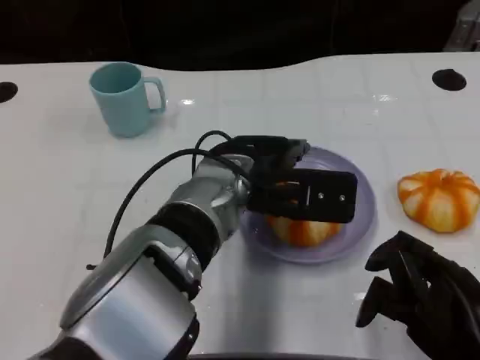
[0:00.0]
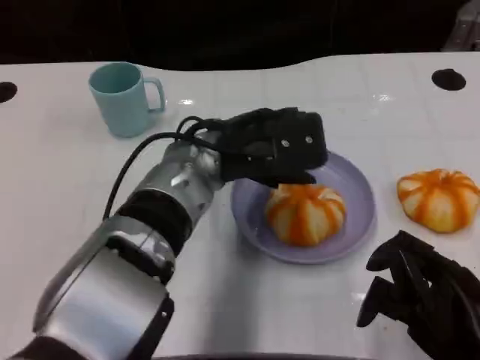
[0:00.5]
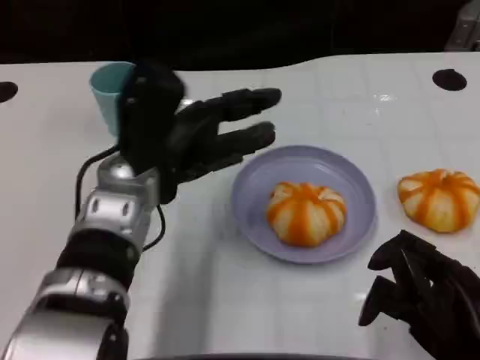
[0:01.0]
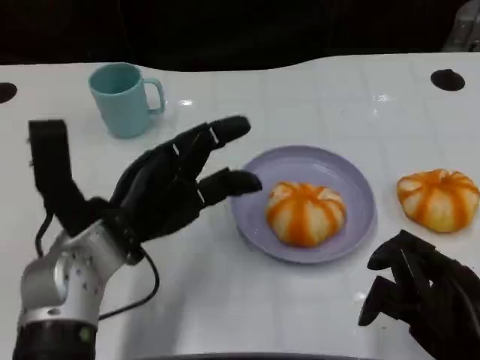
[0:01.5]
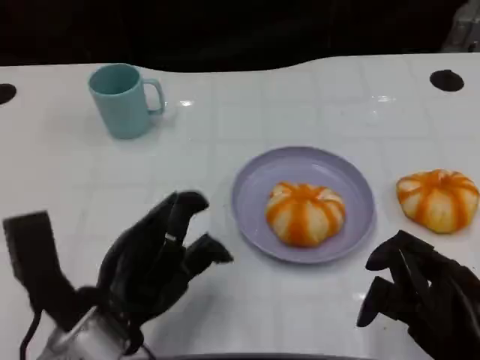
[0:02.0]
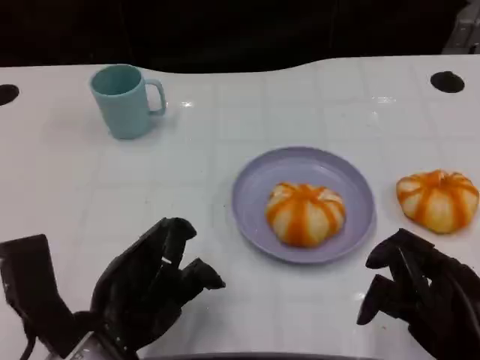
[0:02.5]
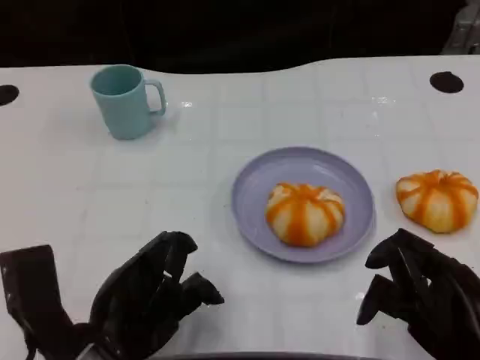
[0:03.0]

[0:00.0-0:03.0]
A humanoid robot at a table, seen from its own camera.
Task of the whole recording: Grasp the bread from the table and place it into the plate.
0:00.0 to 0:01.5: The left hand is displaced to the left by some 15 cm.
0:01.5 to 0:03.0: The left hand travels backward by approximately 10 cm.

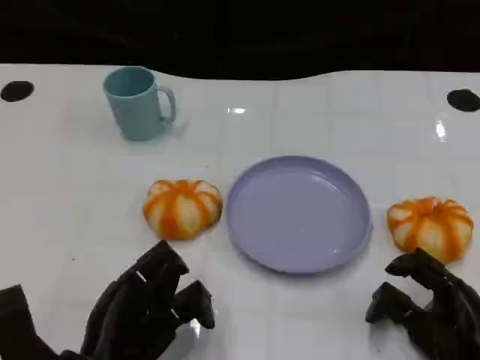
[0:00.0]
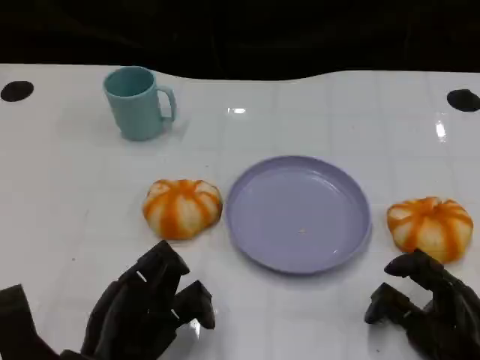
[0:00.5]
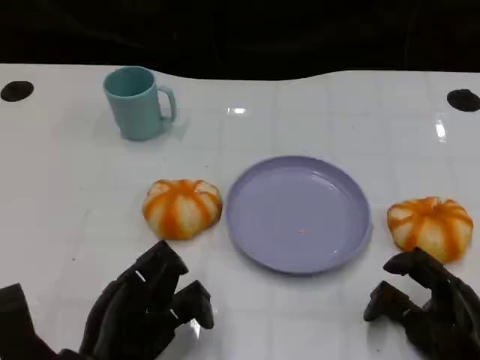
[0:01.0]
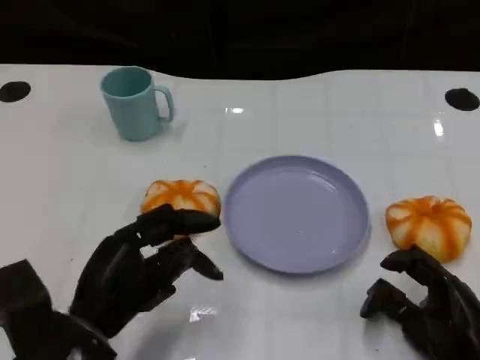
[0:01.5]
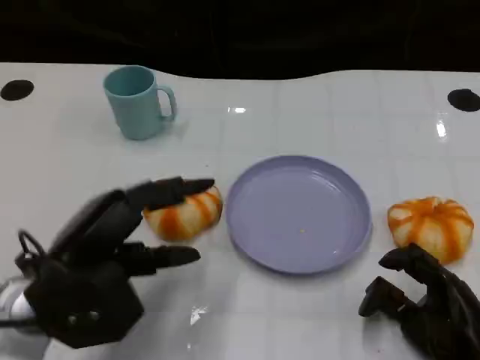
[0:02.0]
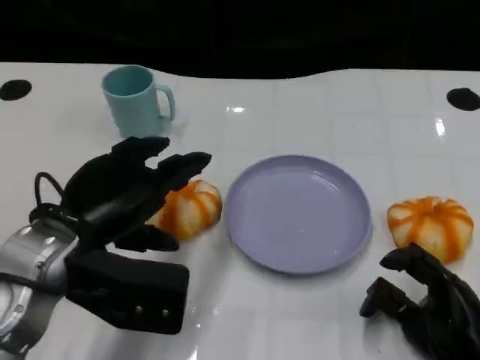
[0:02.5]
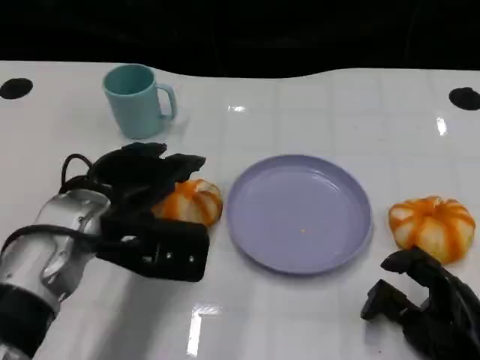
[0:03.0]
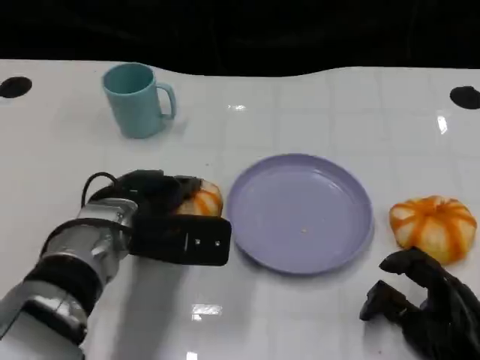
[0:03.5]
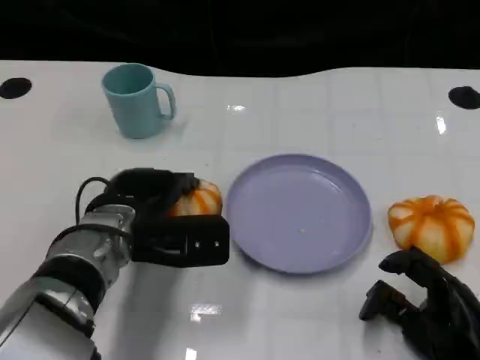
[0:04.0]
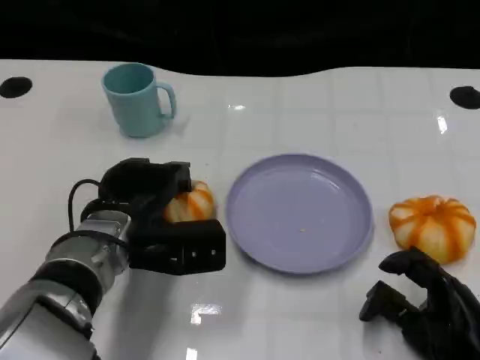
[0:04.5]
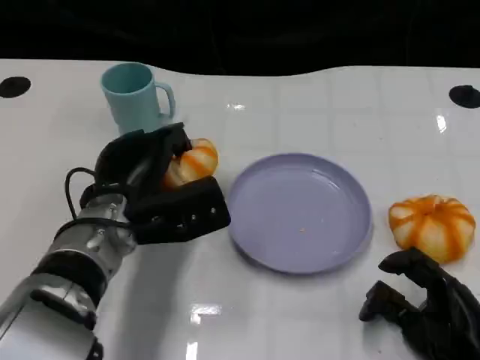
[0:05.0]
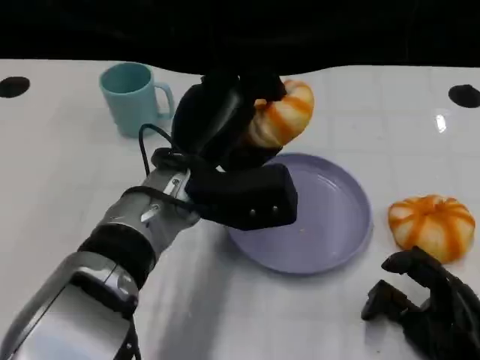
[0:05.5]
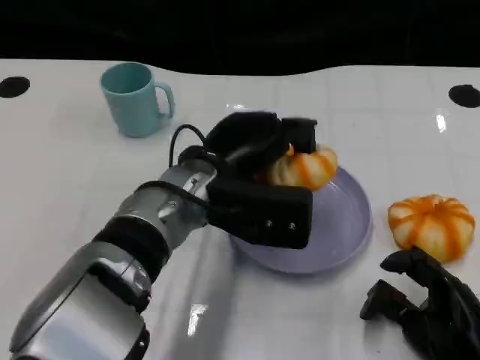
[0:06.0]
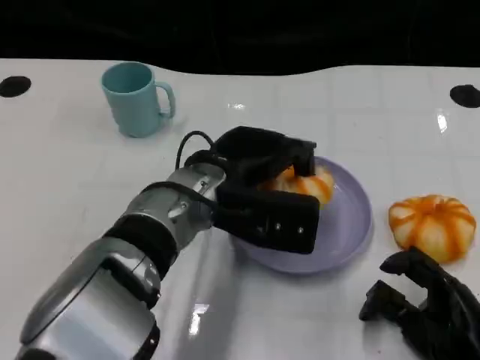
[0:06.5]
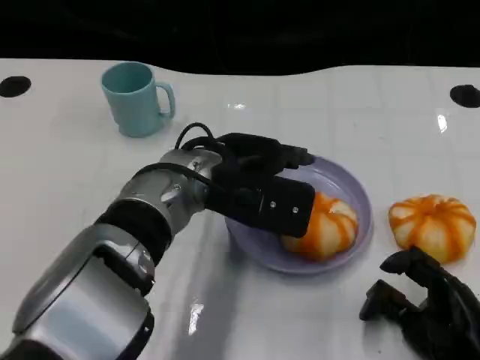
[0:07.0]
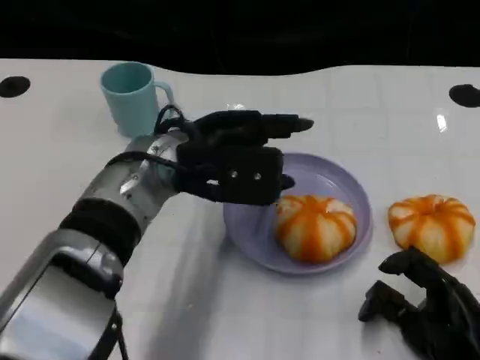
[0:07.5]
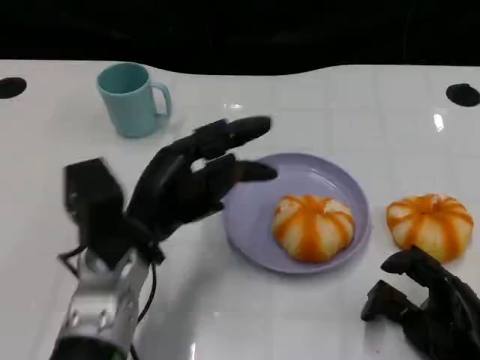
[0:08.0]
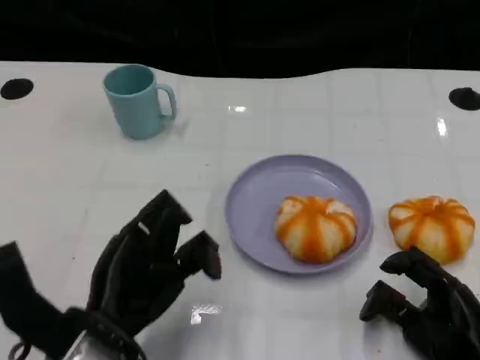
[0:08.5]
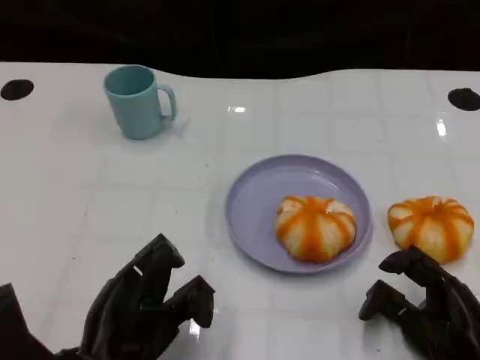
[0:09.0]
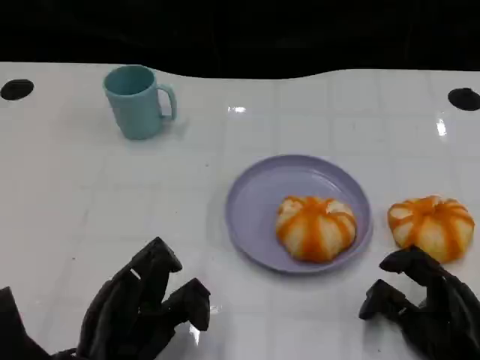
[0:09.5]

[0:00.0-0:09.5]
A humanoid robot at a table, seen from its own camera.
Task of the whole recording: Grasp the bread from the table and place it into the plate.
0:00.0 to 0:02.0: The left hand travels upward and forward by about 10 cm.
0:02.0 to 0:04.0: The left hand shifts some 10 cm forward and to the right.
0:04.0 to 0:05.5: The left hand is displaced to the right and upward by approximately 10 cm.
0:07.5 to 0:09.5: The left hand moves backward, downward and to the left, approximately 20 cm.

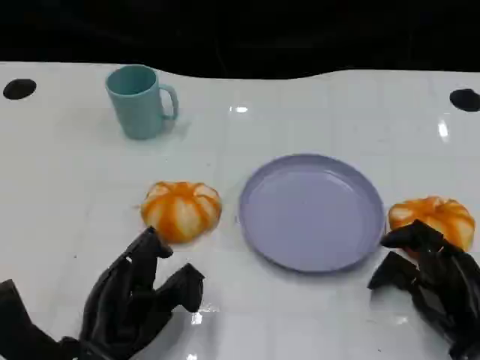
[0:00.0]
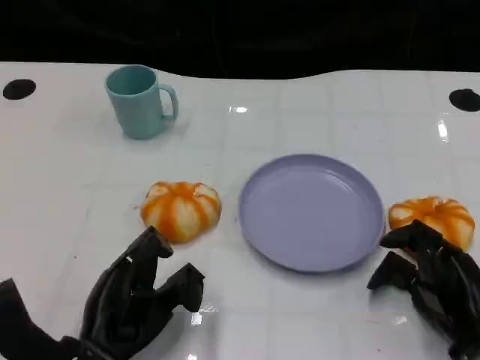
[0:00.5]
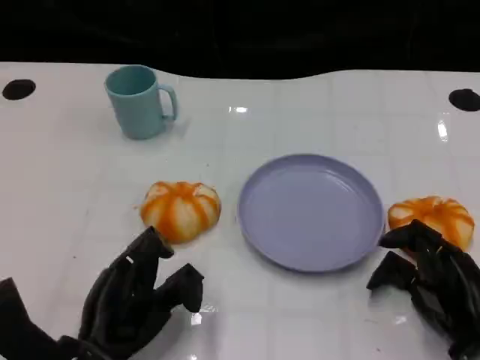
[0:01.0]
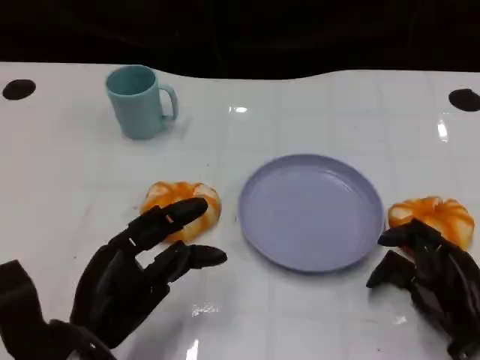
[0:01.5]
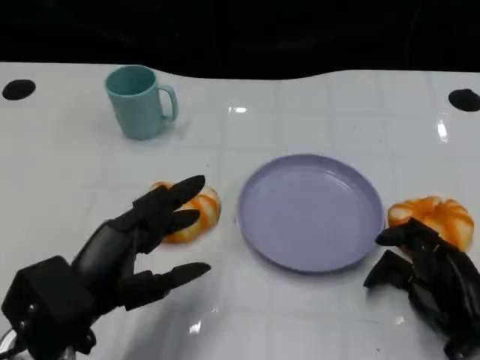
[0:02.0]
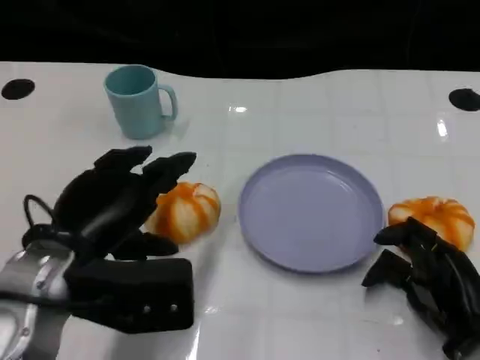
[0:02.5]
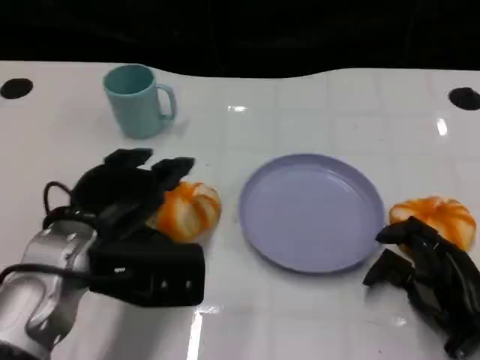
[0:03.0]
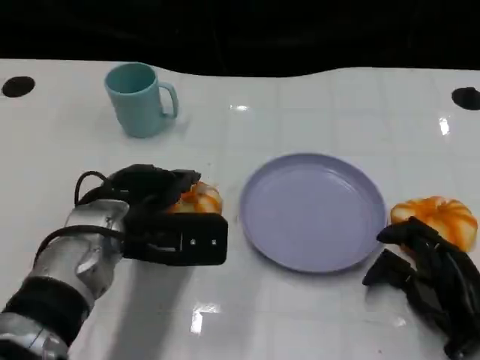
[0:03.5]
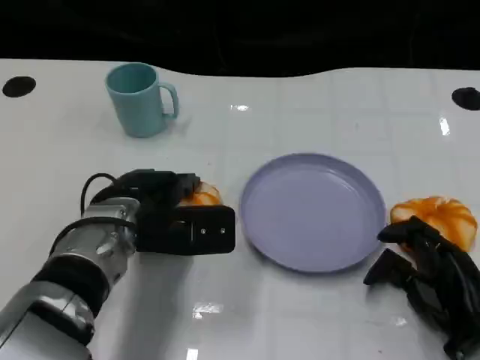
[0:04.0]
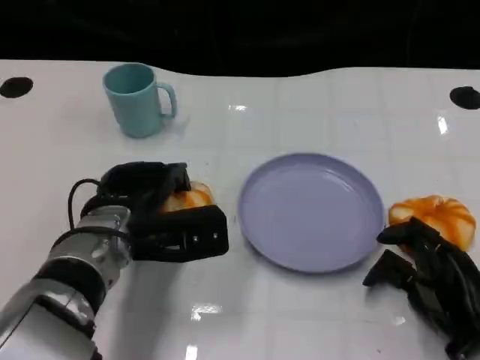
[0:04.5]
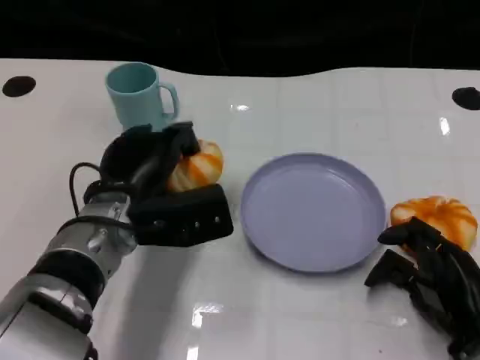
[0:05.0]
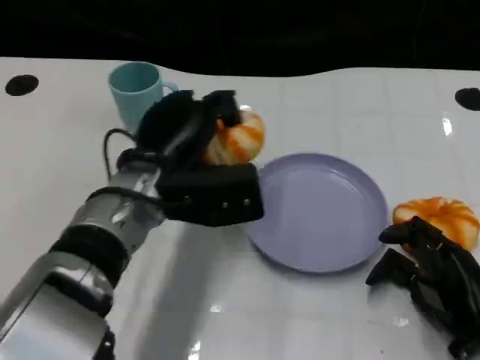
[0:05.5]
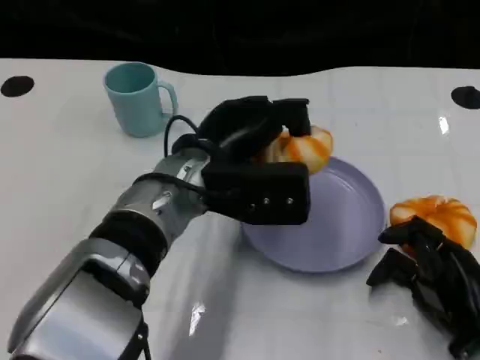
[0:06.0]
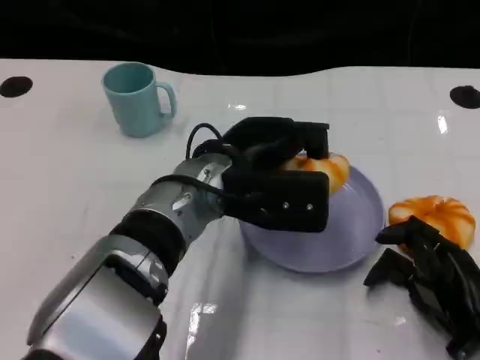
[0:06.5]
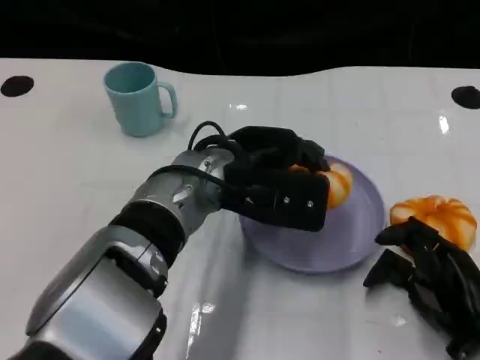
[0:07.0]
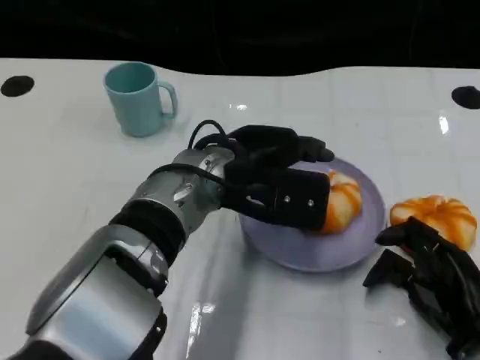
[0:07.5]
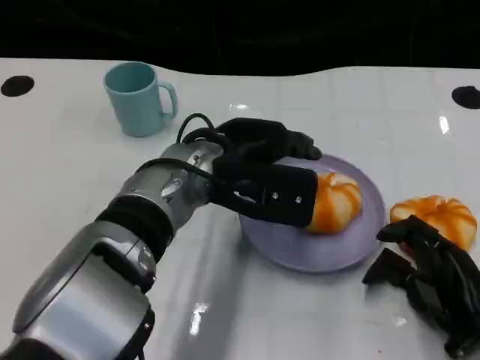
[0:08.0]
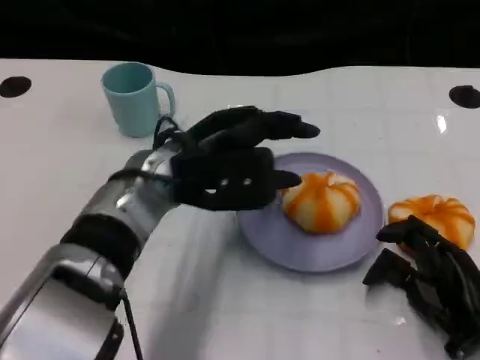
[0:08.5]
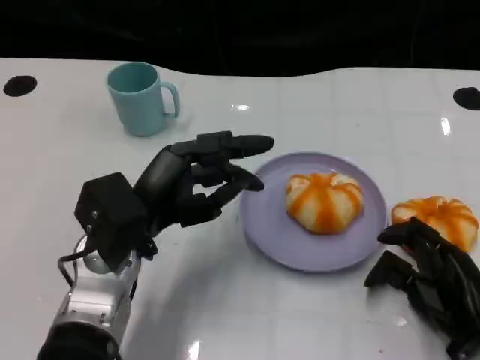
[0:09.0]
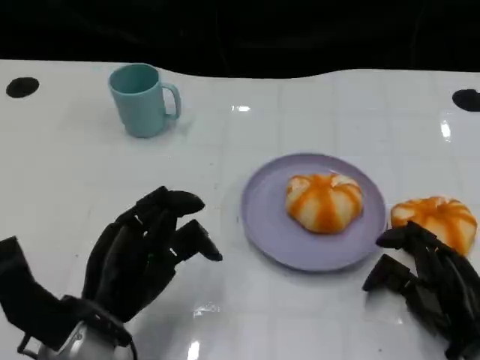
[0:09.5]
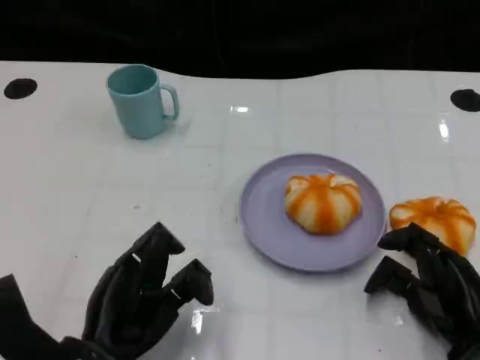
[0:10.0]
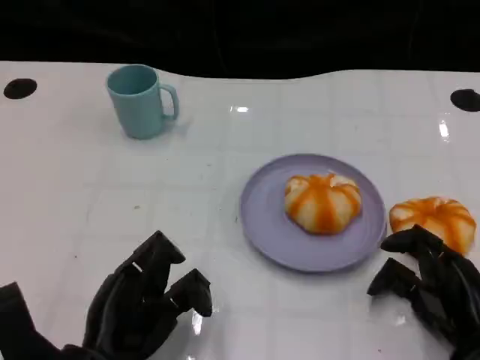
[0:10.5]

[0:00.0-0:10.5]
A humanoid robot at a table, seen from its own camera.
Task of the whole recording: Grasp the bread from the table and place it into the plate.
0:00.0 to 0:02.0: The left hand travels upward by approximately 10 cm.
0:02.0 to 0:04.0: The left hand travels forward and to the right by roughly 15 cm.
0:04.0 to 0:06.5: The left hand heads to the right and upward, covering some 10 cm.
0:06.5 to 0:08.5: The left hand moves to the left, roughly 5 cm.
0:08.5 to 0:10.5: The left hand goes approximately 20 cm backward, downward and to the left.

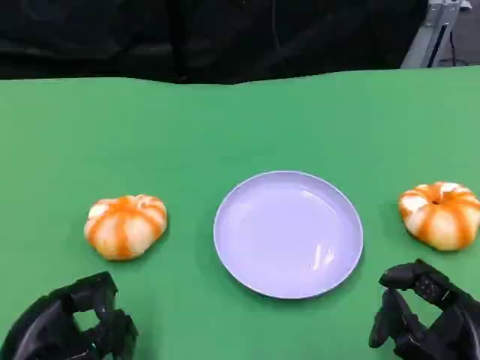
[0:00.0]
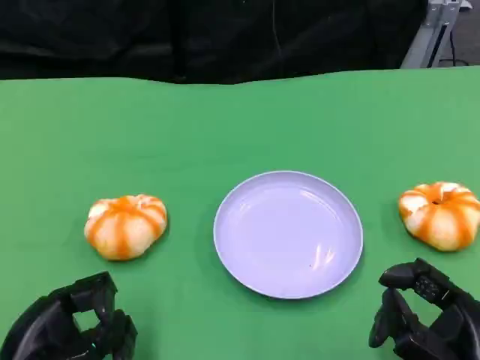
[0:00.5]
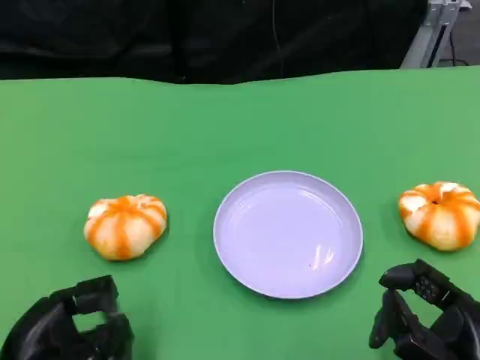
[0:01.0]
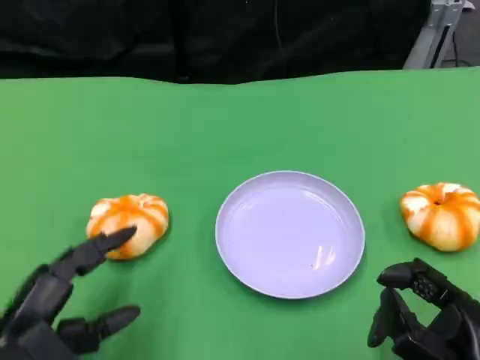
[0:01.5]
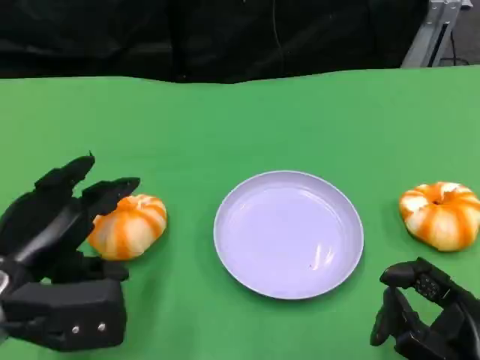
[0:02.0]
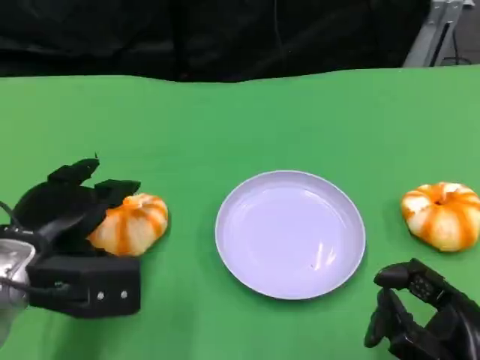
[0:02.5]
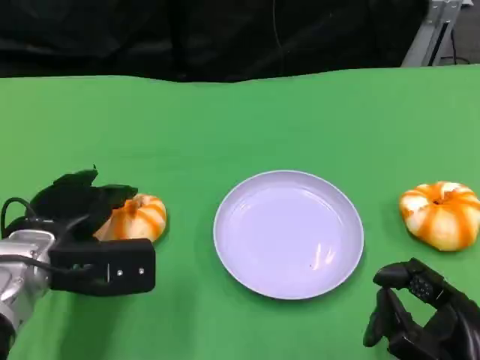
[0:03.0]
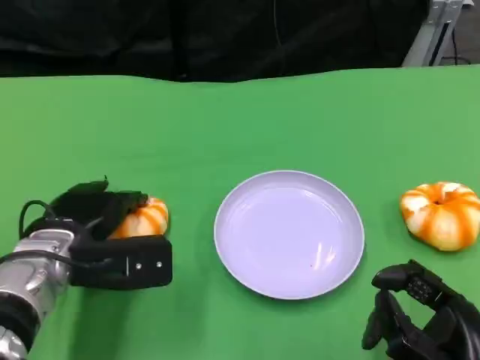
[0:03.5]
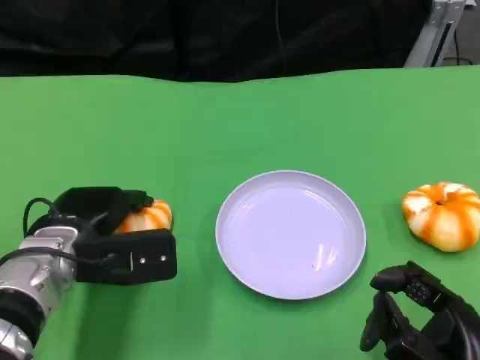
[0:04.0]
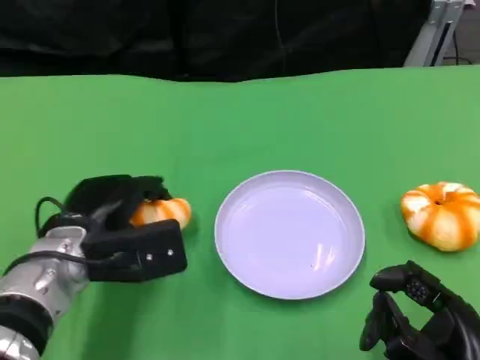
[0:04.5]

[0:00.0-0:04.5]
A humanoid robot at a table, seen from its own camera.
Task of the whole recording: Grasp the bread from the table and place it into the plate.
0:00.0 to 0:02.0: The left hand shifts approximately 10 cm forward and upward.
0:02.0 to 0:04.5: The left hand shifts some 10 cm to the right and forward.
